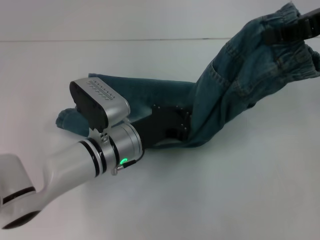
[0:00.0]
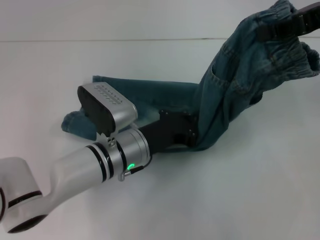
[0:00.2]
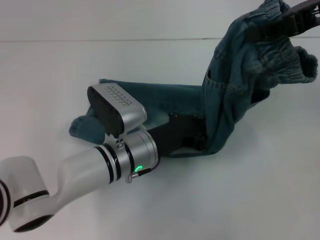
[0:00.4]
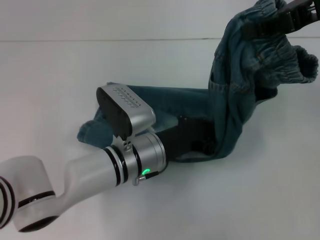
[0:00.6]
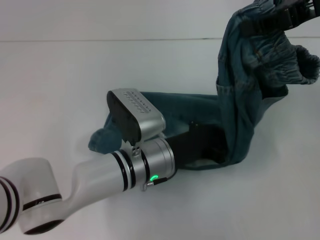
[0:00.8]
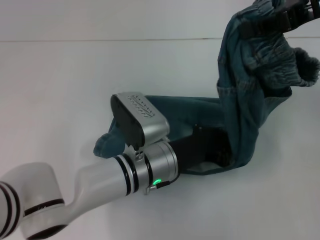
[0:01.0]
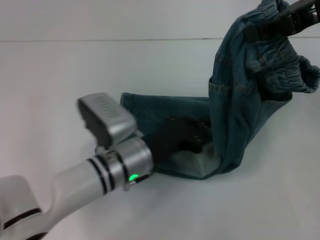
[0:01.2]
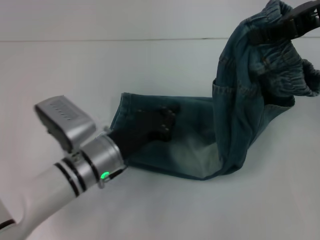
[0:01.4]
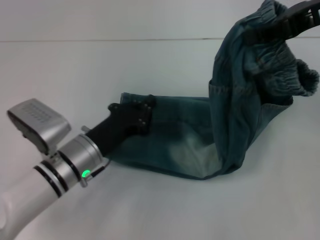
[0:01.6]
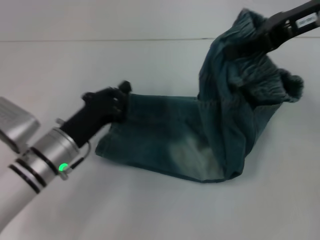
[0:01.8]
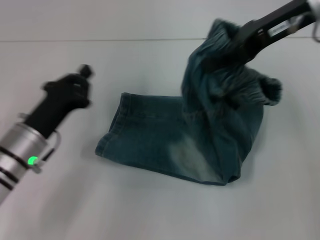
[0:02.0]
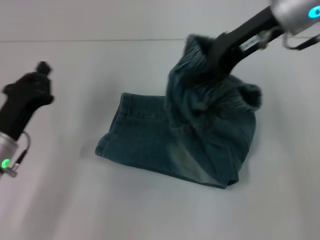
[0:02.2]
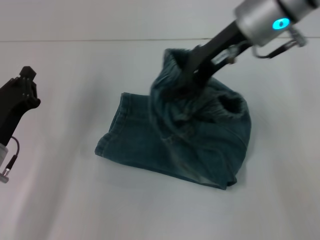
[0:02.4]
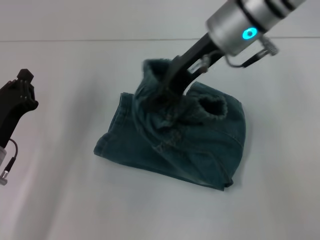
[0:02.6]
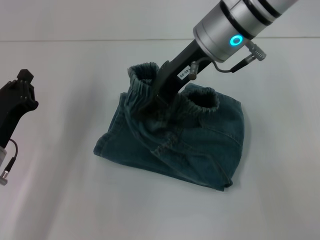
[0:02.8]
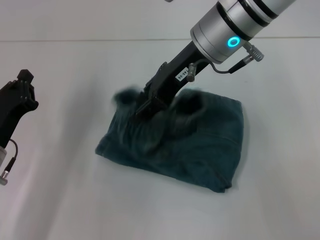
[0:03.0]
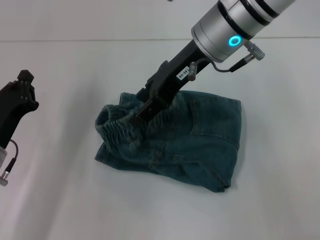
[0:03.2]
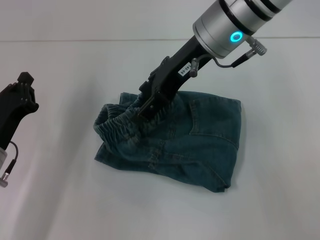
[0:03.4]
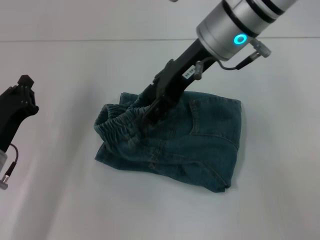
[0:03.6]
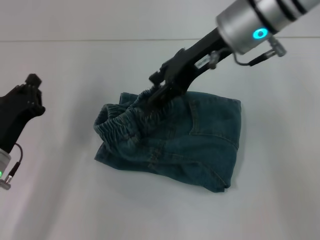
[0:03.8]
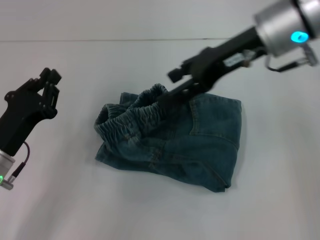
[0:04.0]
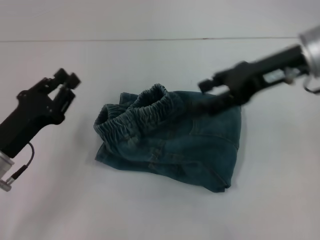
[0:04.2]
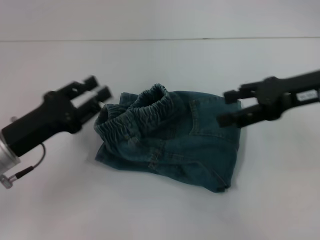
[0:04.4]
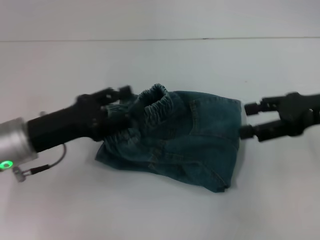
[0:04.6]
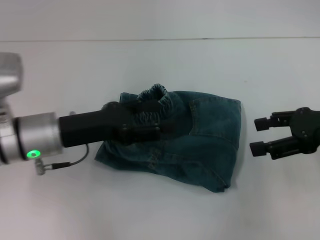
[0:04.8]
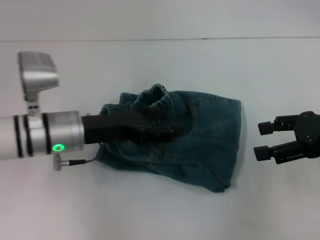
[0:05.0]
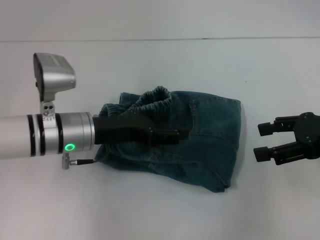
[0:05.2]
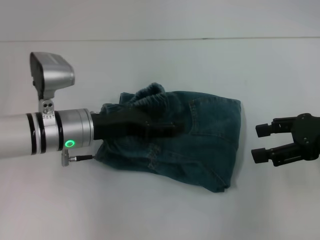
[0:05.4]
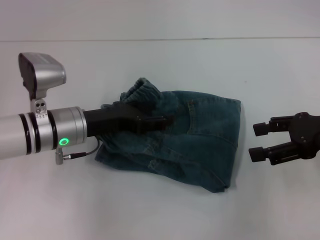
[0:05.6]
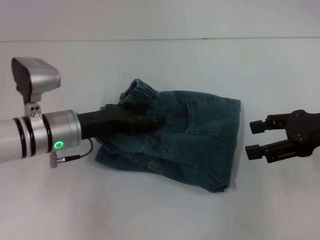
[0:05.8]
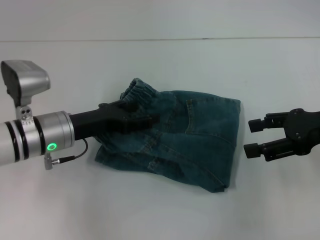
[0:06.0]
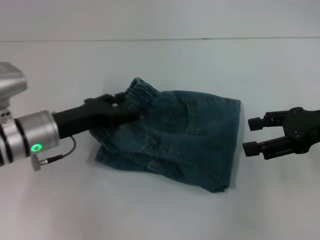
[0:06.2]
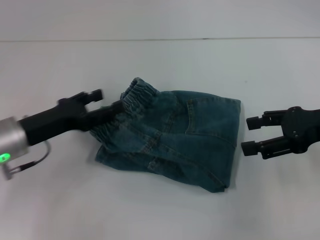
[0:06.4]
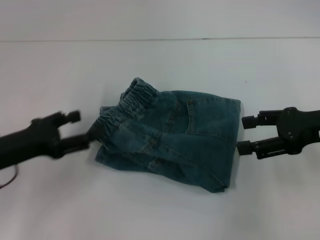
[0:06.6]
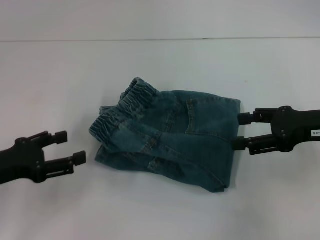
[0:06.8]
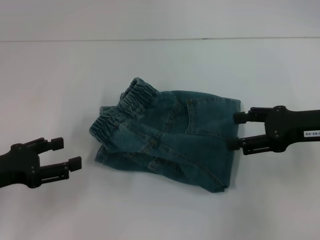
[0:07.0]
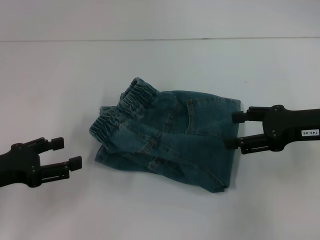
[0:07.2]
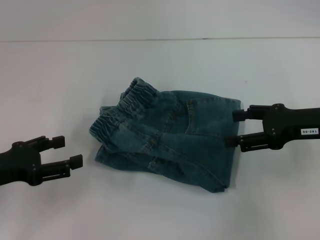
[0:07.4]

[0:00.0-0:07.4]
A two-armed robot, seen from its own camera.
Step, 0:01.2 to 0:03.2: Fold to the left with your right hand.
Step, 0:03.4 to 0:06.2: Adjust the pants with your left hand.
0:00.0 to 0:01.4: The left gripper moves roughly 5 cm to the right and comes back.
0:01.4 to 0:03.0: The grippers both shift to the left by some 15 cm.
0:03.0 to 0:04.4: The right gripper shifts some 20 cm to the right, and opens. Meanwhile the left gripper changes place by some 5 cm, and opens its fingers.
0:04.4 to 0:06.0: The left gripper goes roughly 10 cm forward and to the right, and opens its fingers, while the right gripper ends up approximately 5 cm from where it was.
0:06.0 to 0:07.4: The left gripper is displaced to the left and backward by about 15 cm.

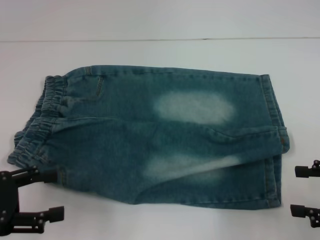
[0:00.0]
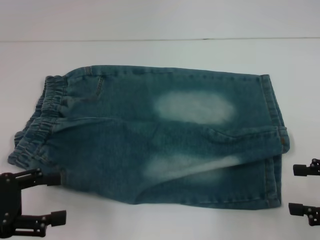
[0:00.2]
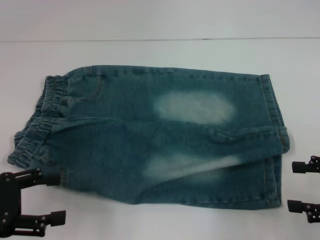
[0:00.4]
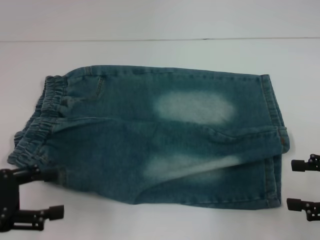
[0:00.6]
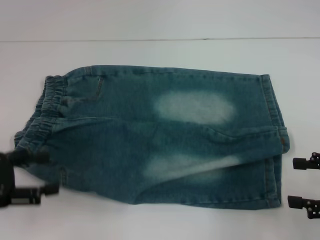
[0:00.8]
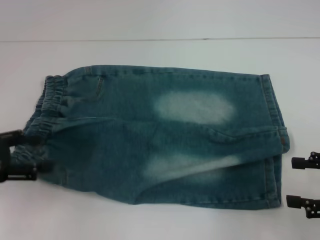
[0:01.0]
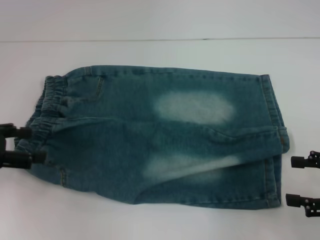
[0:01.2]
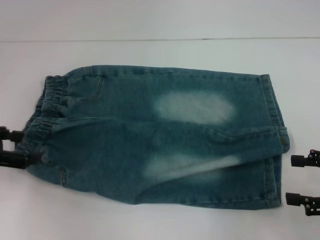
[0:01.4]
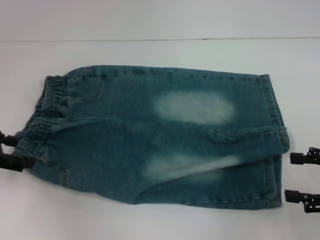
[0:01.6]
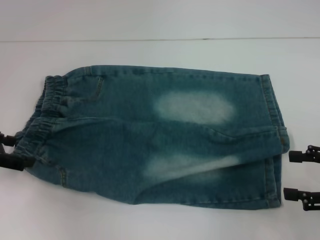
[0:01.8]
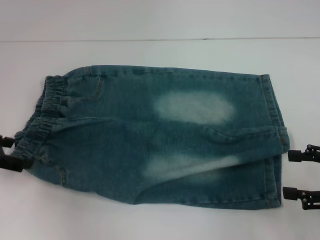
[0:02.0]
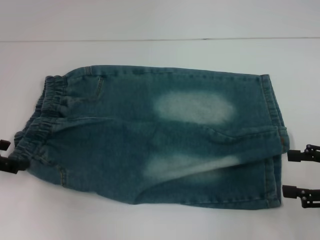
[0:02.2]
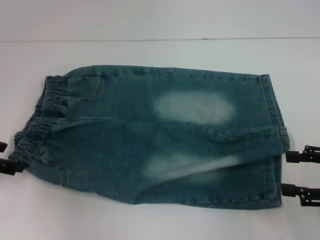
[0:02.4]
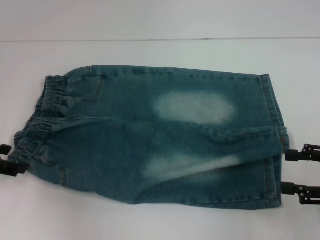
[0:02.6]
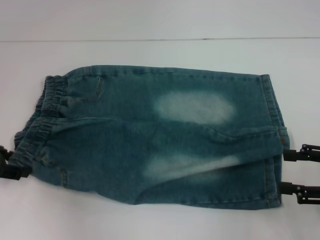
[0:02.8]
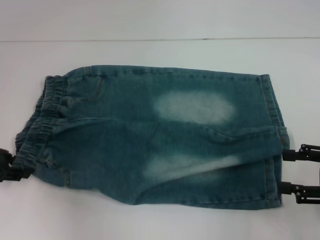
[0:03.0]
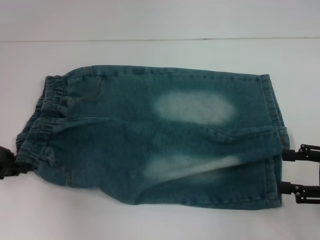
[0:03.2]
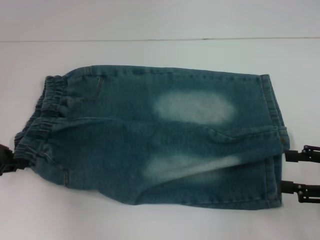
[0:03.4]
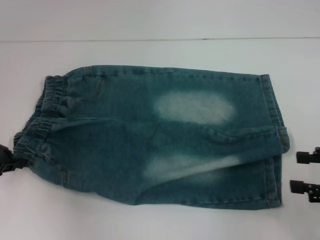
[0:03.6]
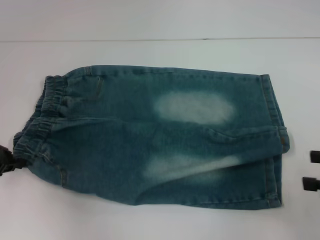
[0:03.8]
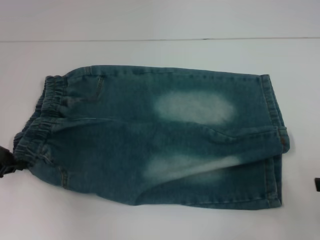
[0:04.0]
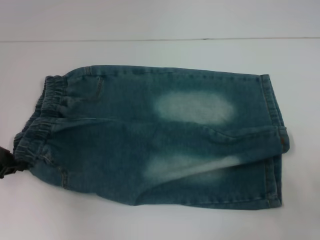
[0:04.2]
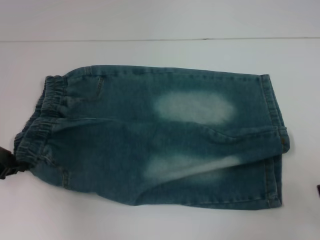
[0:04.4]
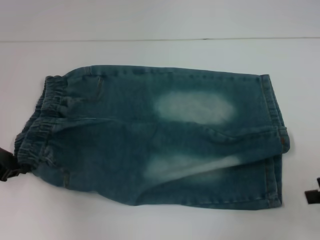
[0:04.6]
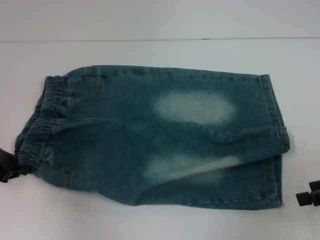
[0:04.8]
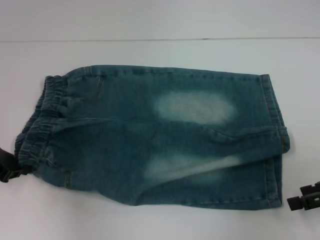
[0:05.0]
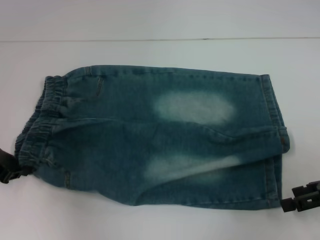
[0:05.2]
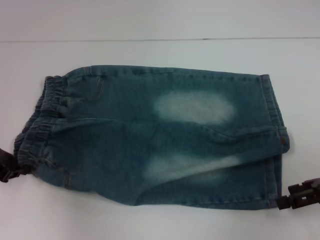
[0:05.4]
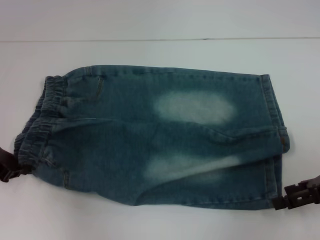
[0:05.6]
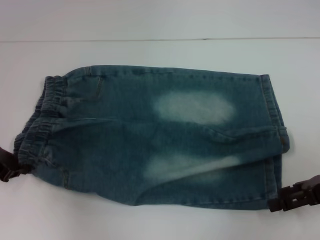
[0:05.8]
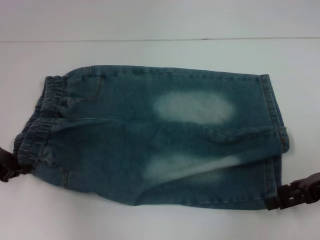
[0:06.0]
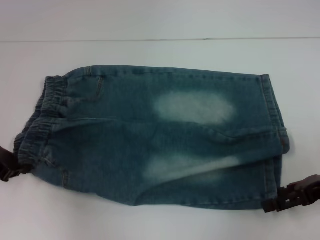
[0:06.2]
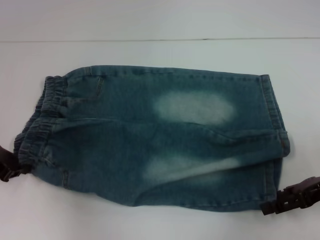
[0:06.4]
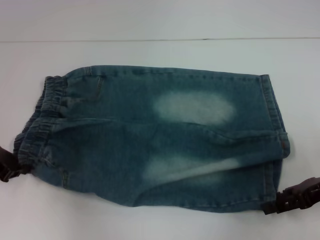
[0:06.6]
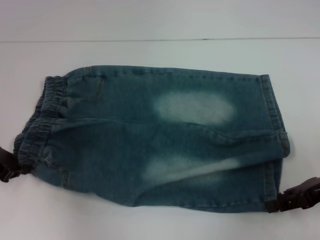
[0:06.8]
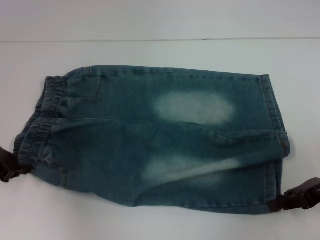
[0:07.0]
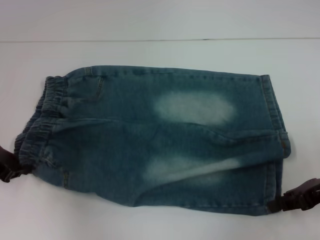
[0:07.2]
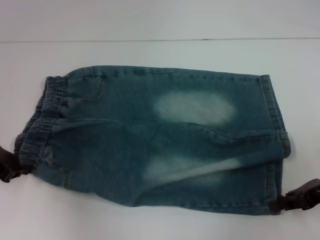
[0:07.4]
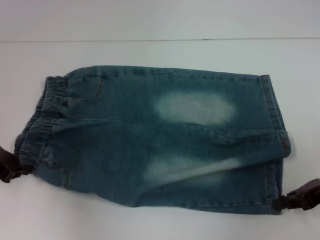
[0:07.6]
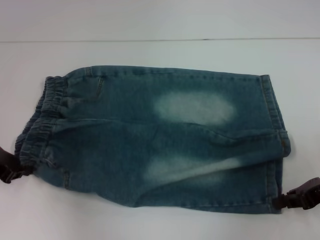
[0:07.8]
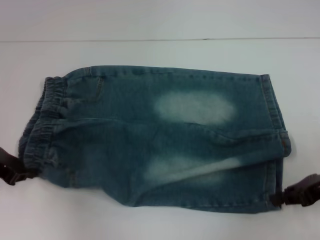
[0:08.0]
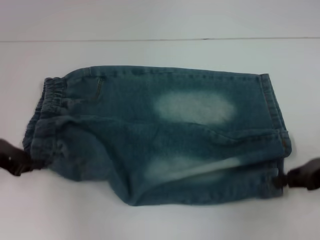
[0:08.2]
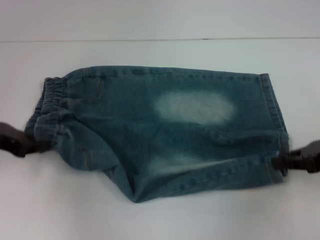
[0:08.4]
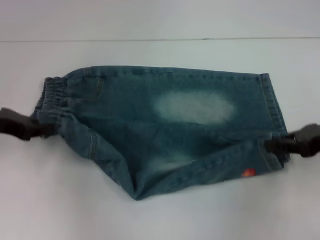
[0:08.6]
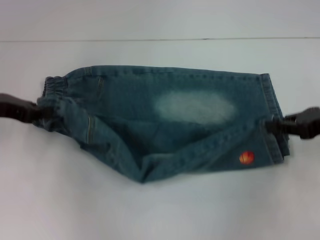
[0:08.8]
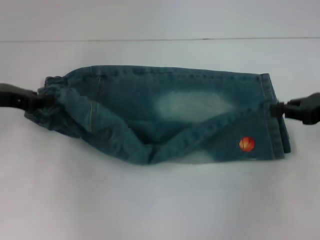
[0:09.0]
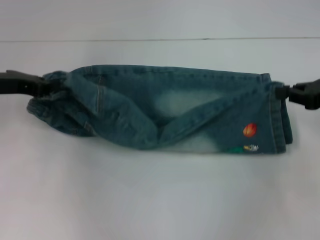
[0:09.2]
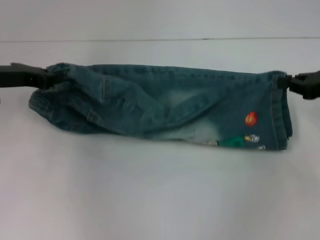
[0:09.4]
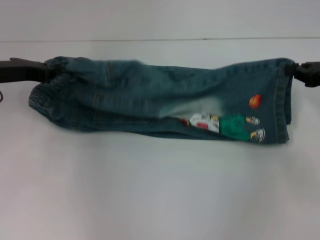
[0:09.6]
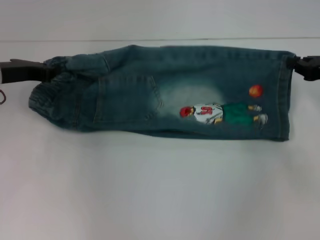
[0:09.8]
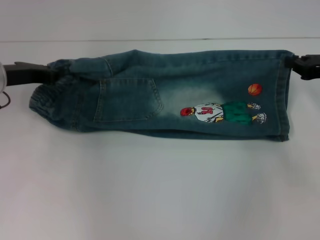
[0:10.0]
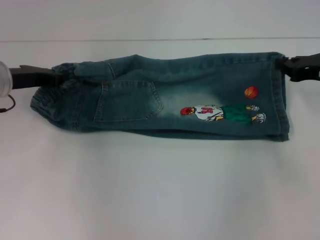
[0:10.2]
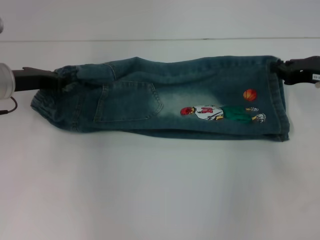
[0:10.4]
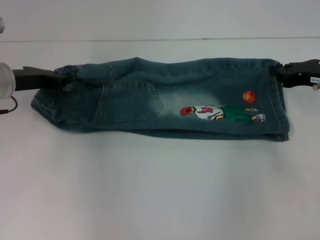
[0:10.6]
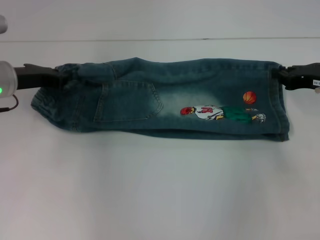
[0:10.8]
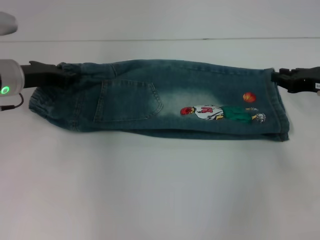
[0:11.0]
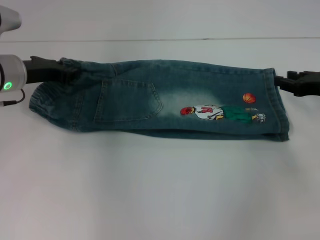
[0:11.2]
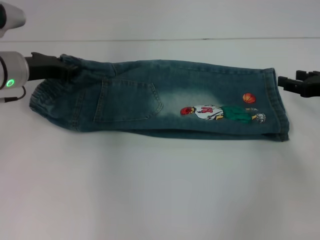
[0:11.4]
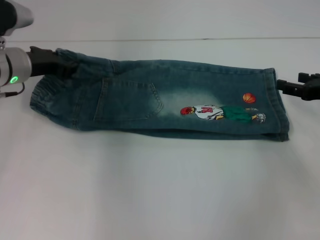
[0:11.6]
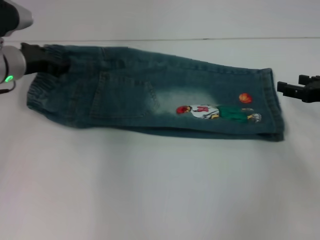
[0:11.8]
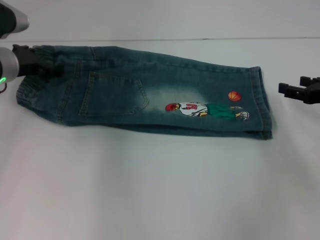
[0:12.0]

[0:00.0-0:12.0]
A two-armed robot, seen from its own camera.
Step, 0:00.0 to 0:04.6: Hold the lower left waistband with your left hand.
Step, 0:04.8 to 0:07.2: Grab the lower right pant leg with your right hand.
Step, 0:07.4 to 0:11.0: Fold upward with your right hand.
0:00.0 to 0:01.6: The left gripper moves forward, some 10 cm.
0:01.6 to 0:03.0: There are only small adjustments of the grippers.
0:03.0 to 0:04.4: The right gripper moves approximately 5 cm. Meanwhile the left gripper closes its fingers.
0:04.4 to 0:06.0: The right gripper is displaced to the left and downward by approximately 10 cm.
0:06.0 to 0:07.6: The right gripper closes.
0:07.6 to 0:09.0: The right gripper moves upward, roughly 5 cm. The left gripper moves approximately 5 cm.
0:09.0 to 0:10.4: The left gripper moves roughly 5 cm, while the right gripper shifts by some 5 cm.
0:10.4 to 0:12.0: The right gripper ends up about 5 cm from where it was, and opens up. Meanwhile the left gripper opens.

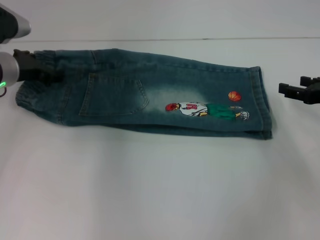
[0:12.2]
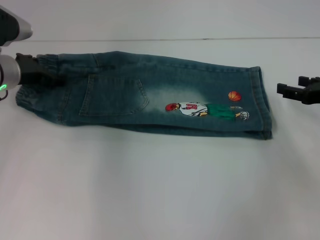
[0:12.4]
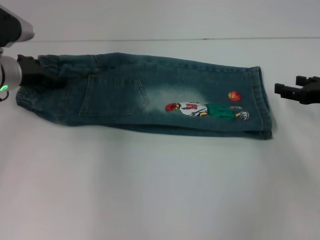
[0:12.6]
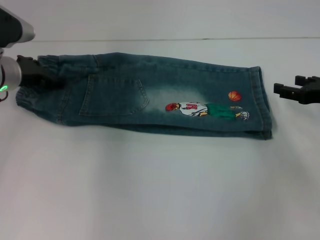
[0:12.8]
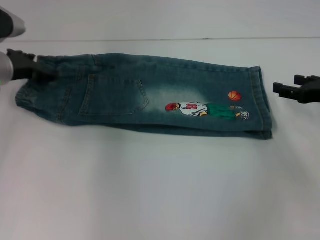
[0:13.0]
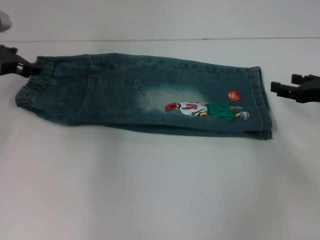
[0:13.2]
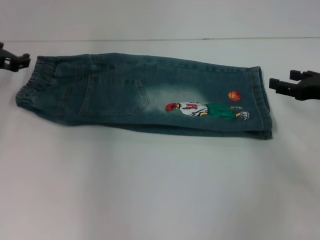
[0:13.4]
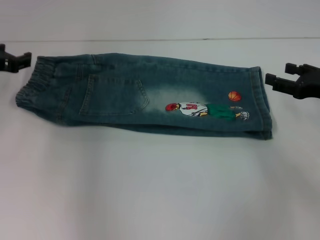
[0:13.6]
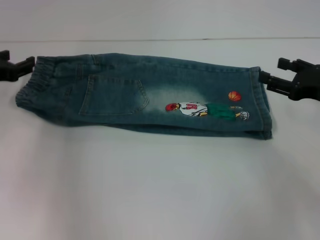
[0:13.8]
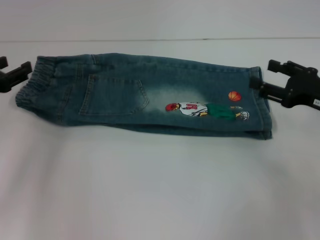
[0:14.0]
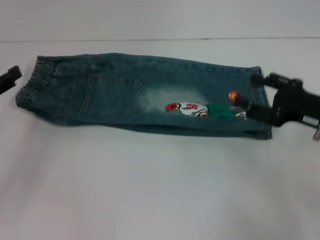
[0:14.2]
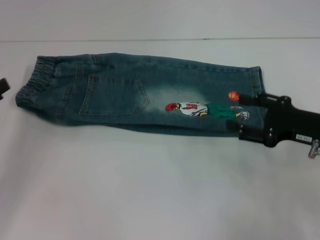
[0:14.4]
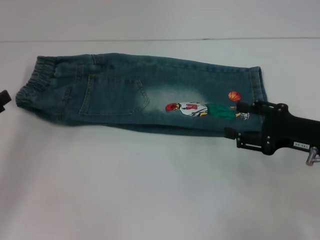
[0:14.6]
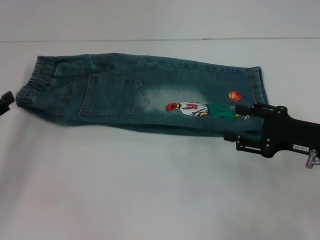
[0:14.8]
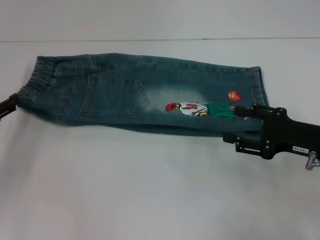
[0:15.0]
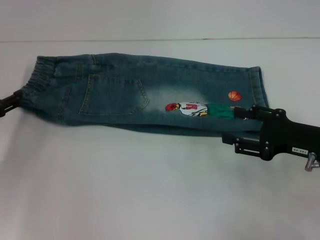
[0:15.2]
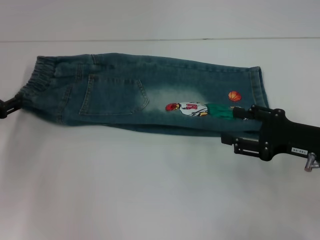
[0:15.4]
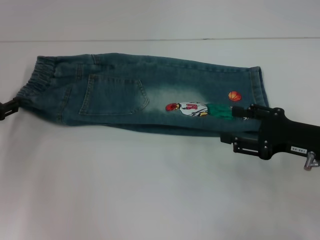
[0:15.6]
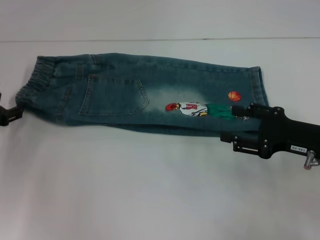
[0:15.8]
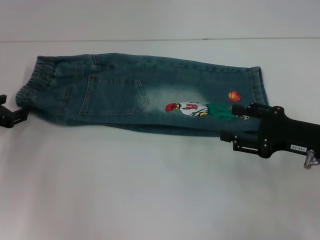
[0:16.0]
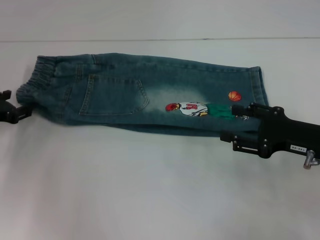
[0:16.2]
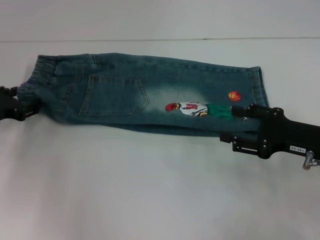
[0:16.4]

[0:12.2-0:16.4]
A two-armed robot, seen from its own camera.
0:12.2 to 0:13.6: The left gripper changes place by some 5 cm.
0:13.6 to 0:15.0: The right gripper goes roughly 5 cm backward, while the left gripper heads backward and downward, covering approximately 10 cm.
0:15.0 to 0:16.4: The left gripper travels forward by approximately 5 cm.
